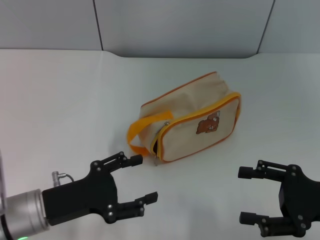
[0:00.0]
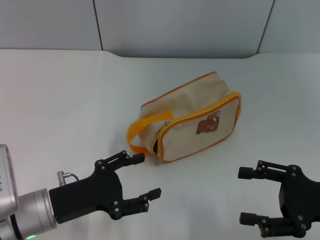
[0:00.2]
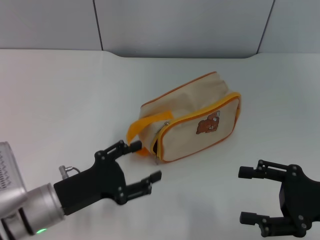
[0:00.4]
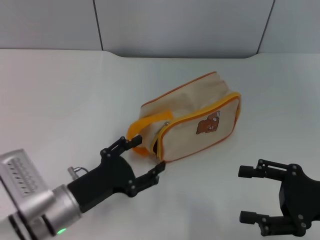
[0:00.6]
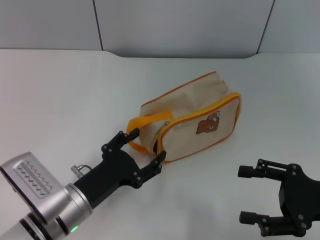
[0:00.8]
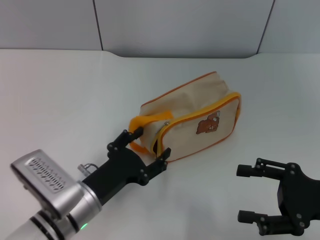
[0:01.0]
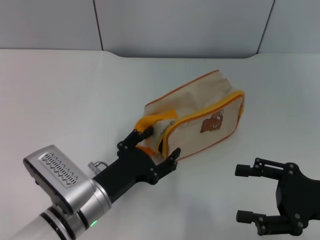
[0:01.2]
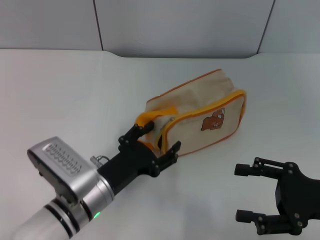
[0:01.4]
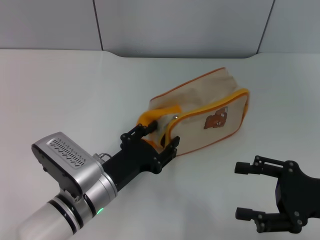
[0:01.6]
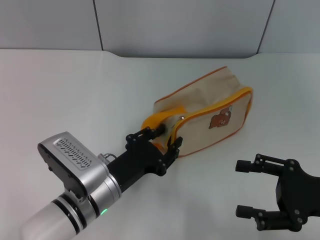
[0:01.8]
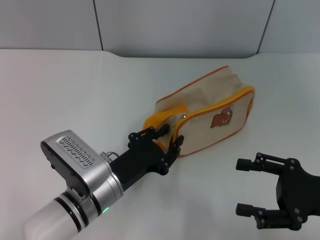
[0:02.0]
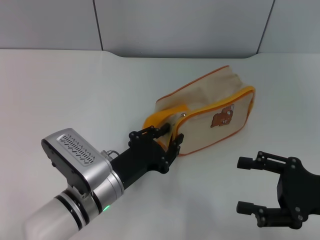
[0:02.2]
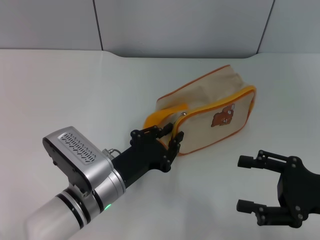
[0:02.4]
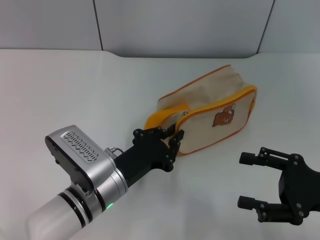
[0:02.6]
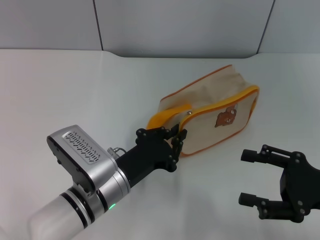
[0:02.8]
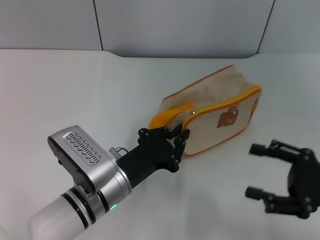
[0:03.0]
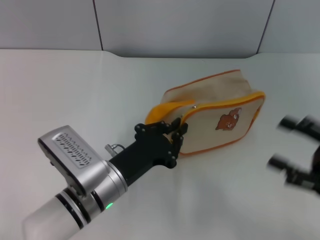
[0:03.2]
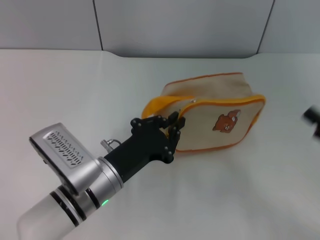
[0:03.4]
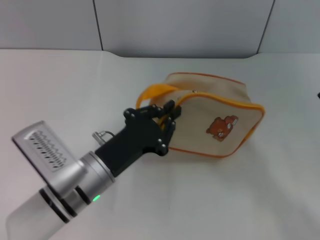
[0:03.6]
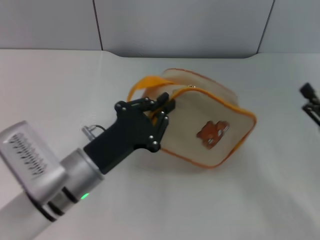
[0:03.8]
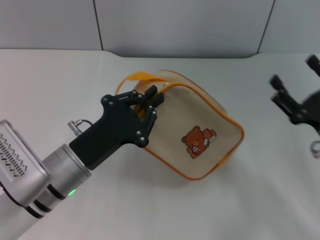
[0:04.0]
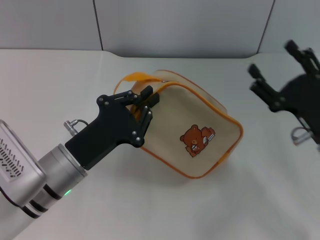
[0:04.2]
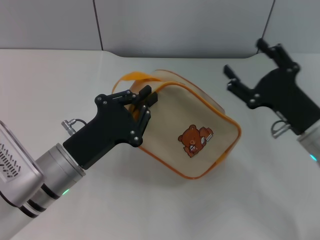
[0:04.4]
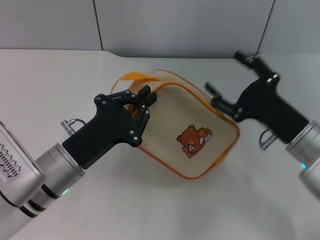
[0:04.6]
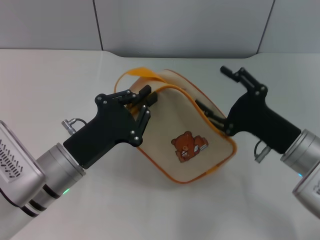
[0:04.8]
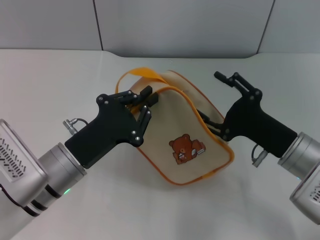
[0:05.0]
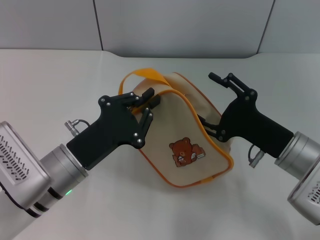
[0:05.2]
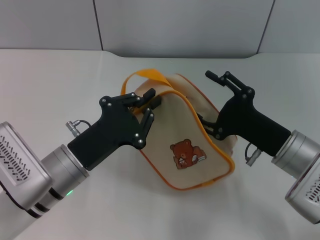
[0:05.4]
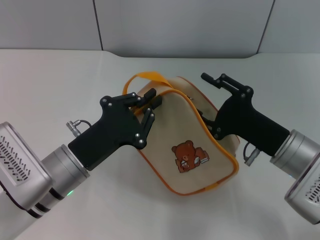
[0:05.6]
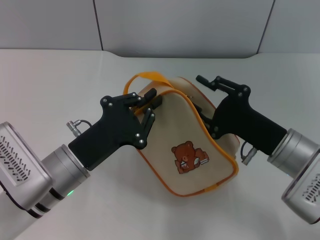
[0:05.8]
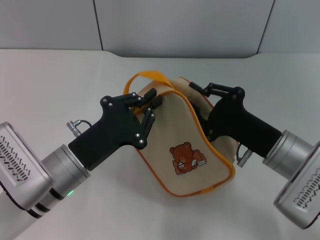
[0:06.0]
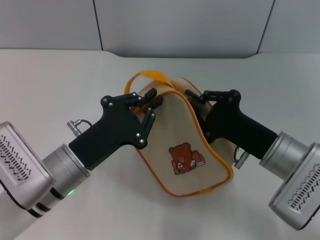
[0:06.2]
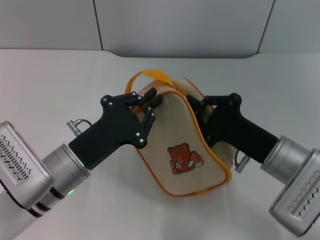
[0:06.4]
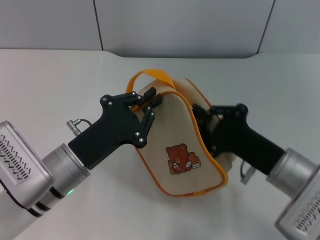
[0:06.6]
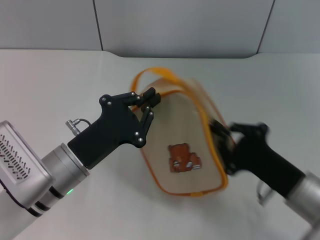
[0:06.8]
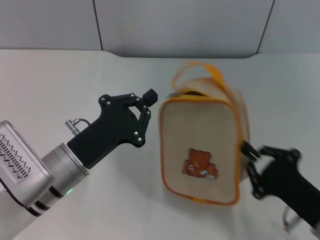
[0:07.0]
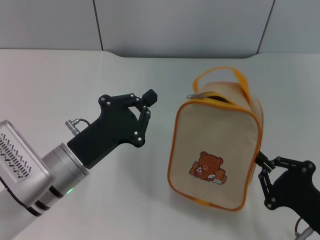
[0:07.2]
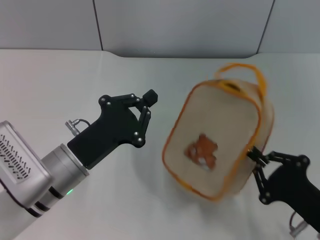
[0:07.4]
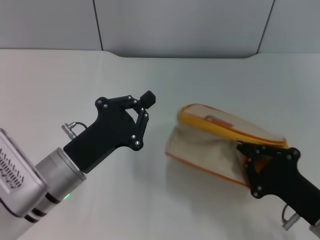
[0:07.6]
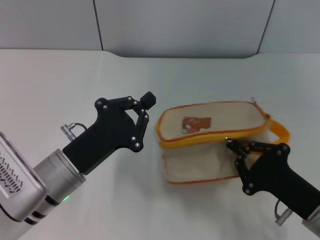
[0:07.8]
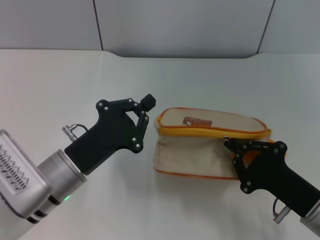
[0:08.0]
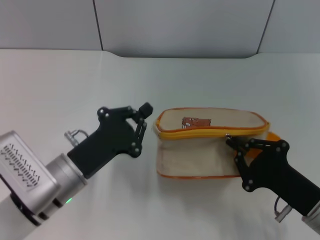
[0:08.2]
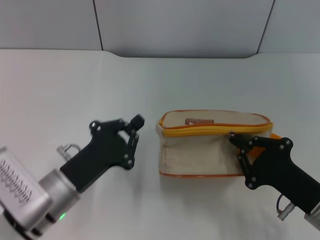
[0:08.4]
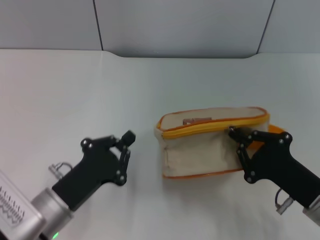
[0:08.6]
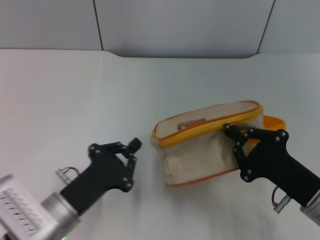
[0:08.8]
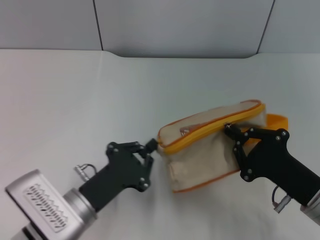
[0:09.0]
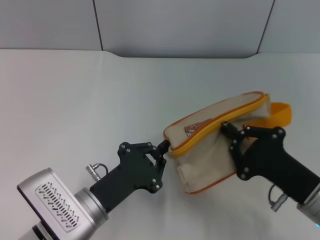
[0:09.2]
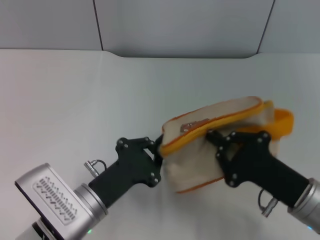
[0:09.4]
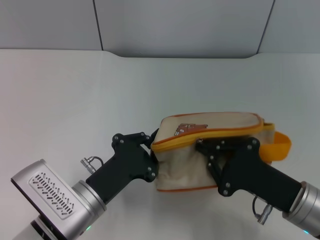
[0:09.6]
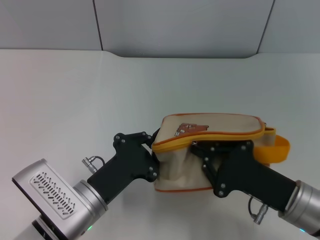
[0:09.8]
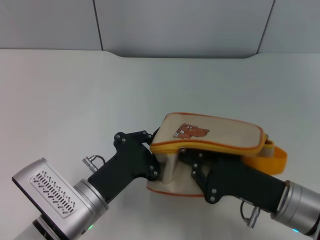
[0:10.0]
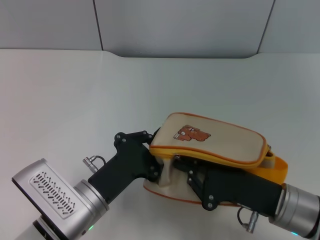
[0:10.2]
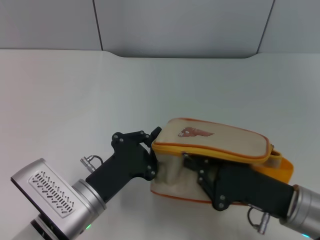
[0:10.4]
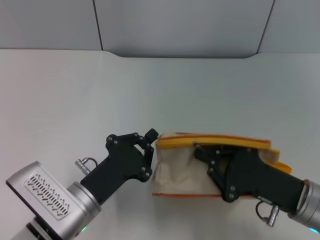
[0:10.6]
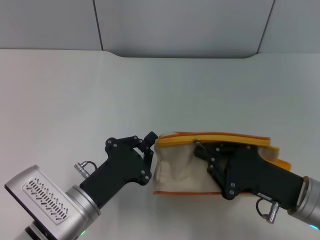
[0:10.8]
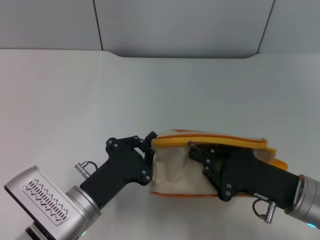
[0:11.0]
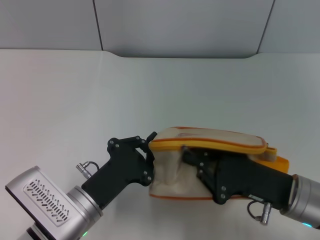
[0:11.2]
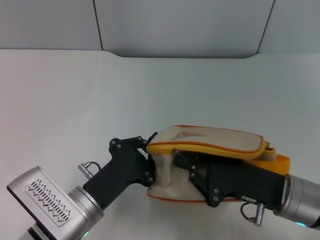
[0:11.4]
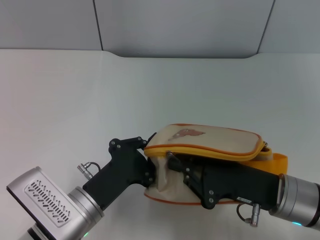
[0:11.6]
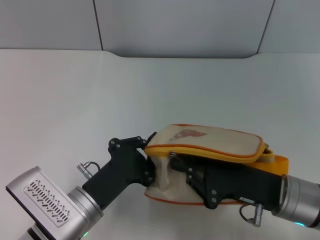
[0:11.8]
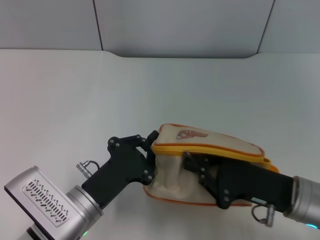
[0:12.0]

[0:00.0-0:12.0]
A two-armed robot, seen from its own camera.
Step, 0:00.0 to 0:04.2: Pick up the bag with left gripper.
0:00.0 to 0:01.6: The left gripper is displaced to the right by some 10 cm.
0:01.6 to 0:03.0: The left gripper closes.
0:03.0 to 0:04.4: The right gripper goes roughly 10 cm forward and to the left; the left gripper is displaced to the left by about 5 cm.
0:04.4 to 0:06.0: The right gripper closes up.
0:06.0 to 0:07.6: The right gripper is displaced backward and to the right by approximately 10 cm, and closes its fingers.
0:07.6 to 0:09.0: The left gripper changes place by approximately 5 cm.
0:10.4 to 0:12.0: The grippers stay close to where they were, moving slightly.

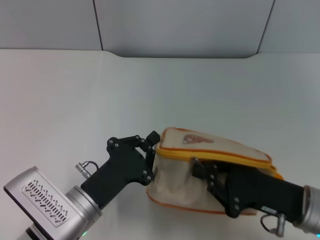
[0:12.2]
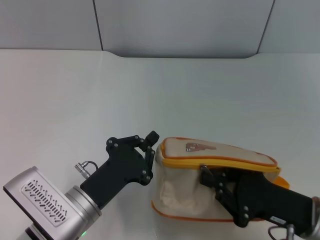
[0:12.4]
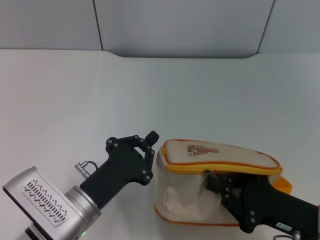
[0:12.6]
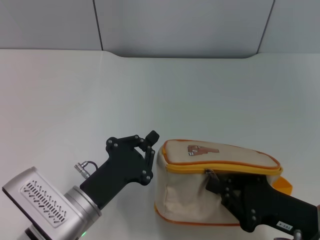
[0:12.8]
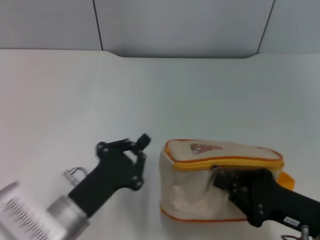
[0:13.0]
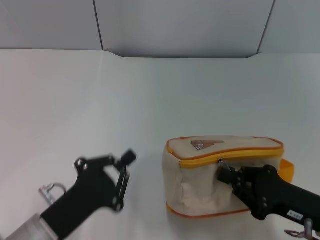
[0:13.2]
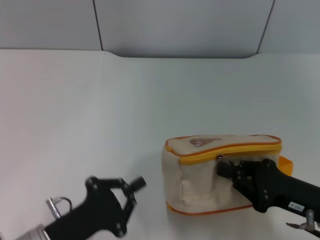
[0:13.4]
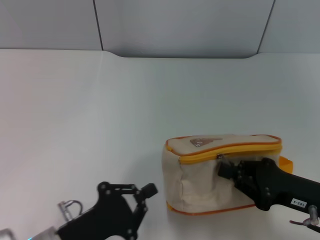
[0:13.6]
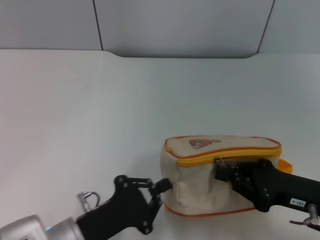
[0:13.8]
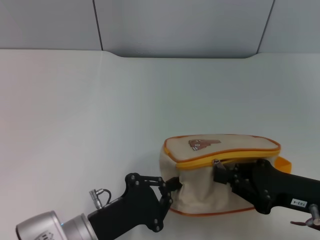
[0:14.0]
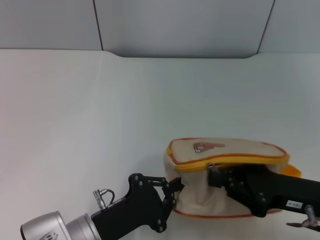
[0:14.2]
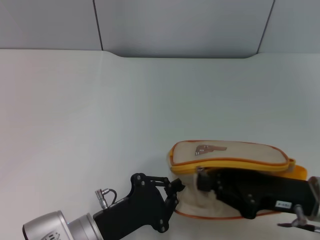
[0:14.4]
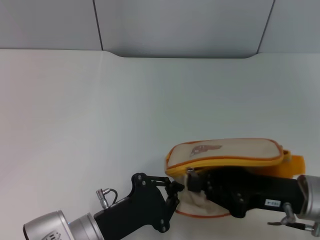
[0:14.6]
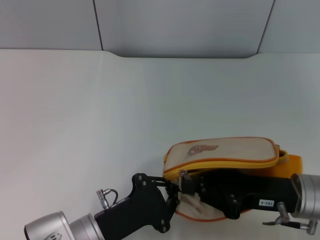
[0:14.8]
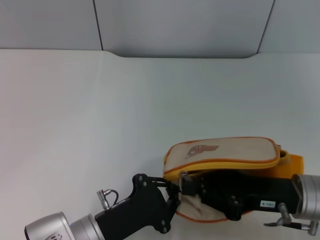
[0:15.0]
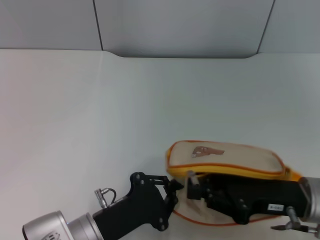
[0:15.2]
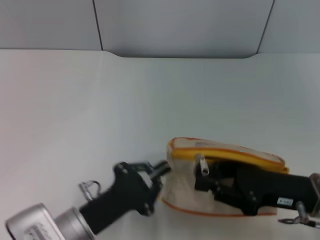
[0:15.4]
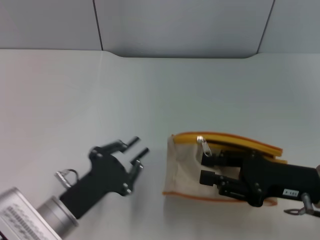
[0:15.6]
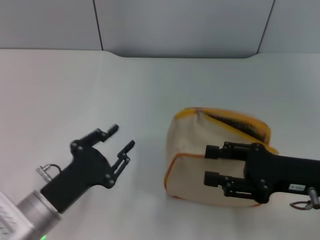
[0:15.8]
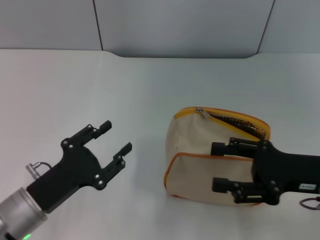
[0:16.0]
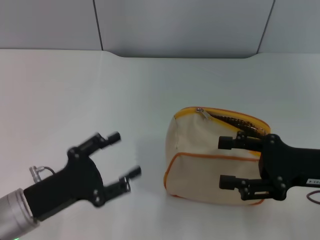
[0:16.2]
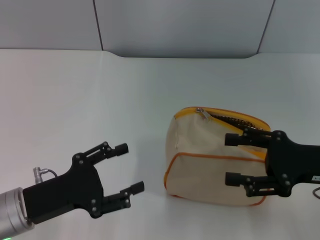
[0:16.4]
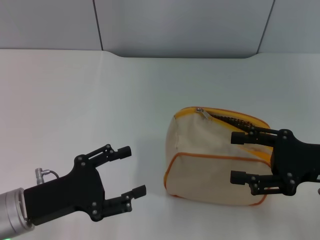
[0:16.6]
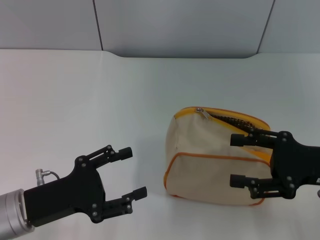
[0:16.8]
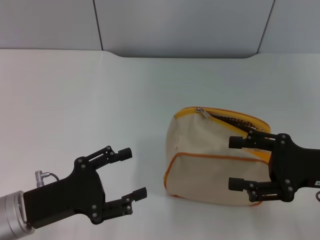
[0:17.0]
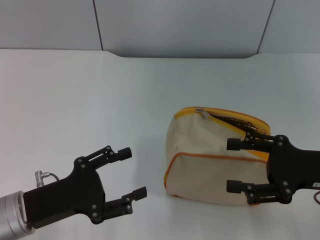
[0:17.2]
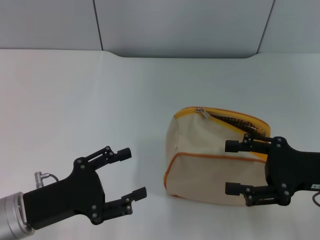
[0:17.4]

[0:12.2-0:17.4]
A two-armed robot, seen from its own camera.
Step, 0:12.2 to 0:16.0: Unzip the zipper of bag with right gripper.
0:14.0 to 0:15.6: The right gripper opens its fingers.
0:15.6 to 0:17.4: The left gripper moves to the left, roughly 5 cm, and opens up. The right gripper opens its fingers.

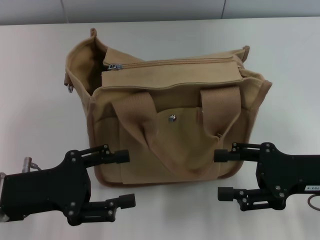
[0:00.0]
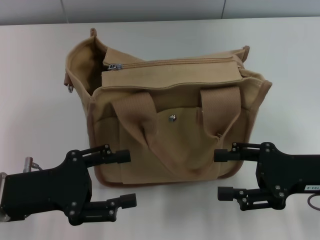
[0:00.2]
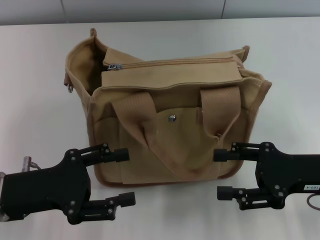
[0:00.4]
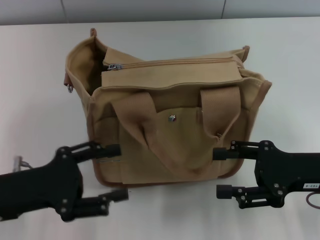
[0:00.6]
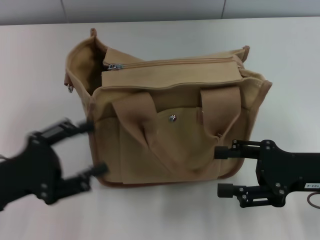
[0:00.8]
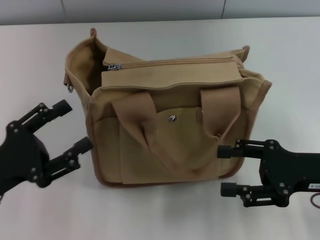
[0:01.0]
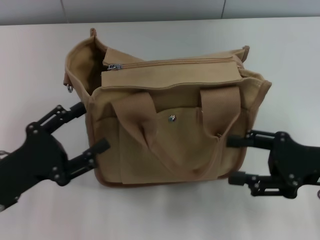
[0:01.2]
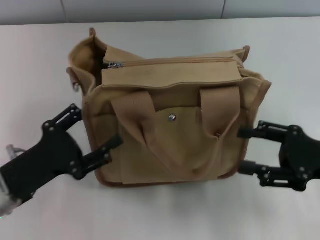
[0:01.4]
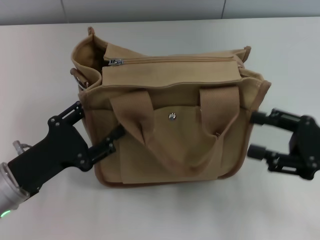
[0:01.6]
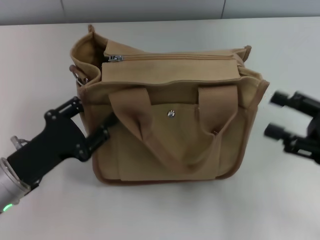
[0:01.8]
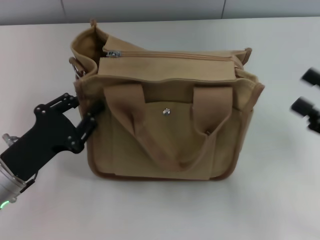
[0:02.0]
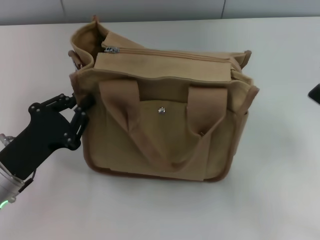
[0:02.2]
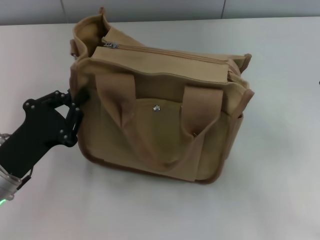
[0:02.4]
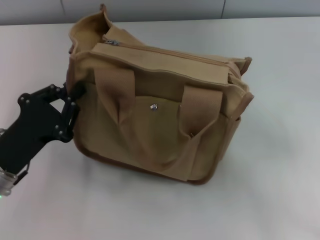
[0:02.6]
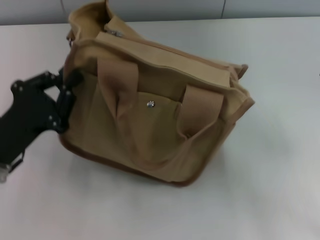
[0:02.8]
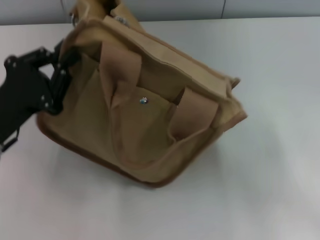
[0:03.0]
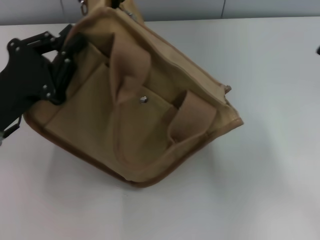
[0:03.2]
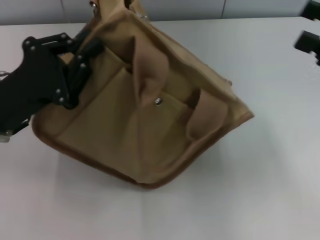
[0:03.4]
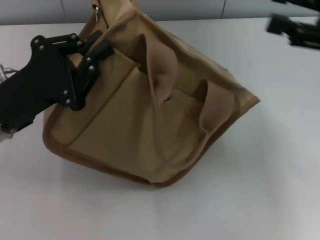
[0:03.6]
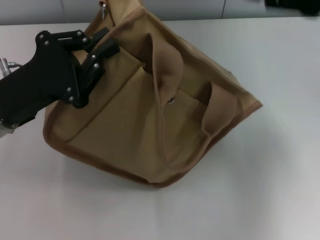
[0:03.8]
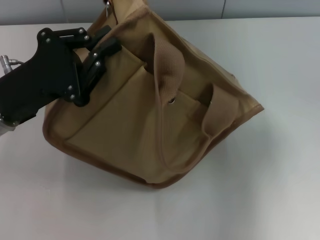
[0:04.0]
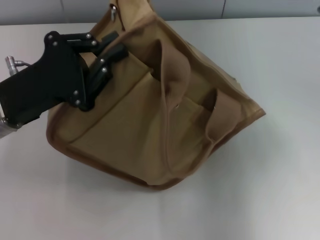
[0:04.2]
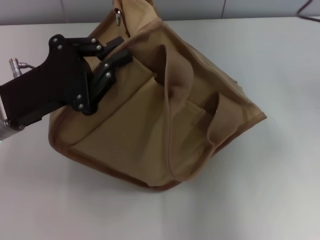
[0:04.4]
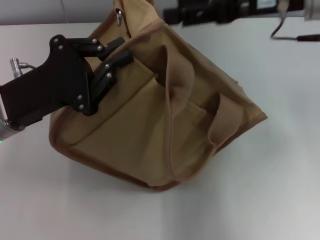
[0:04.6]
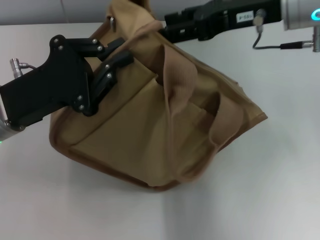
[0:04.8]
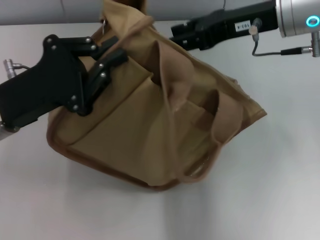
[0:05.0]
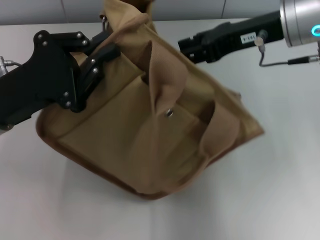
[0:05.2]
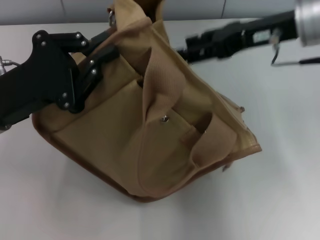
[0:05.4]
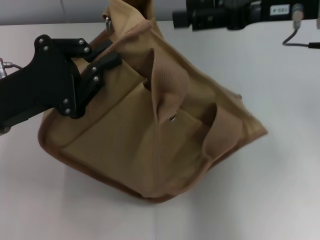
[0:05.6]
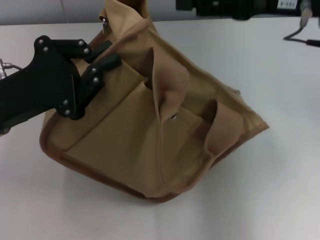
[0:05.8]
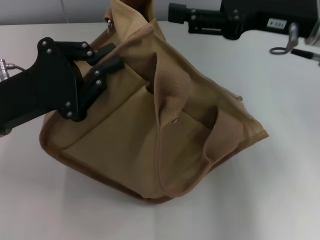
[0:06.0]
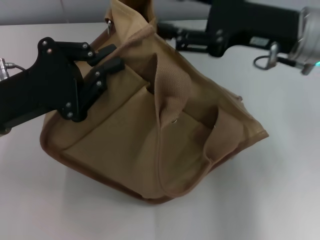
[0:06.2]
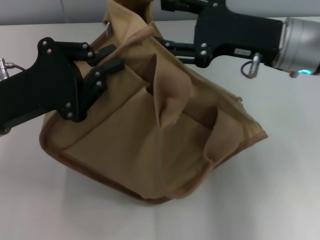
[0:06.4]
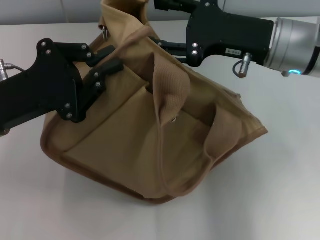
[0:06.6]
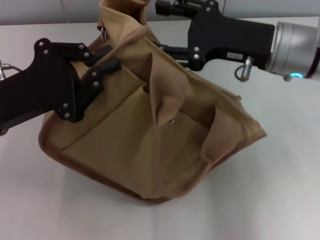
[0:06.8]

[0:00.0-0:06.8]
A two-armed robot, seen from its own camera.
0:01.4 to 0:02.8: The right gripper shifts by approximately 5 cm. Meanwhile the left gripper closes up.
0:02.8 to 0:04.0: The right gripper travels upward, forward and to the left by roughly 20 cm, while the left gripper is displaced upward by some 5 cm.
0:04.0 to 0:05.4: The right gripper shifts about 5 cm to the left.
0:05.4 to 0:06.8: The right gripper shifts some 5 cm downward.
